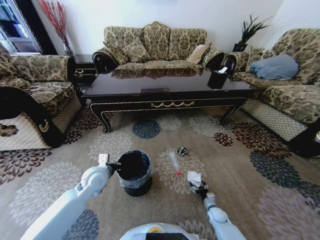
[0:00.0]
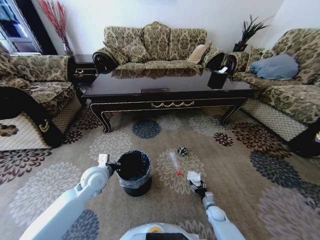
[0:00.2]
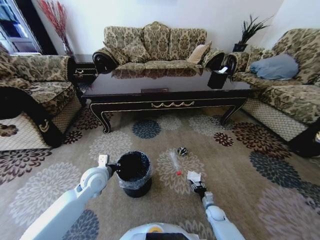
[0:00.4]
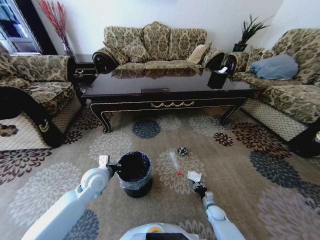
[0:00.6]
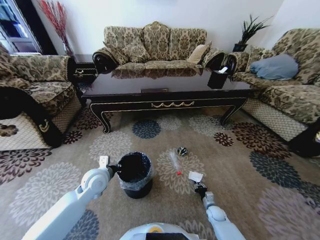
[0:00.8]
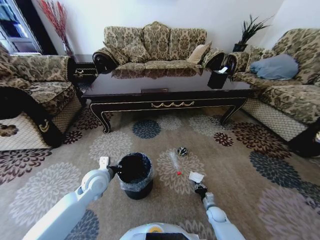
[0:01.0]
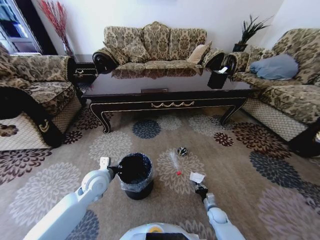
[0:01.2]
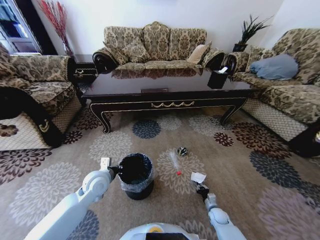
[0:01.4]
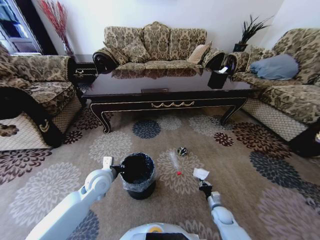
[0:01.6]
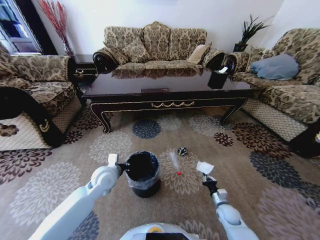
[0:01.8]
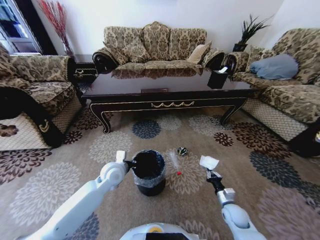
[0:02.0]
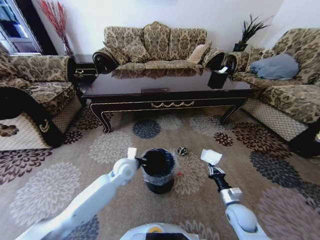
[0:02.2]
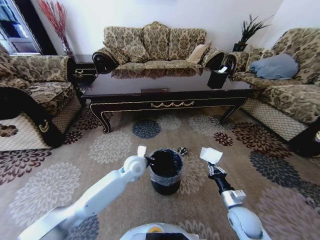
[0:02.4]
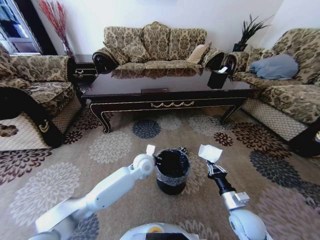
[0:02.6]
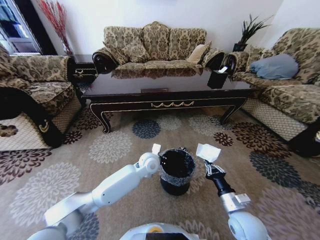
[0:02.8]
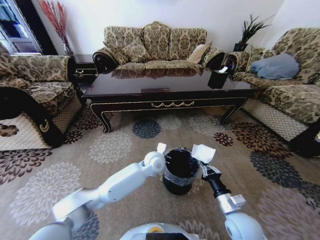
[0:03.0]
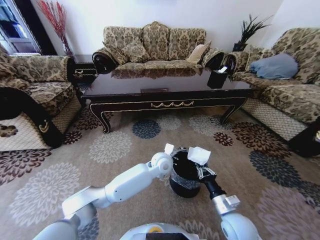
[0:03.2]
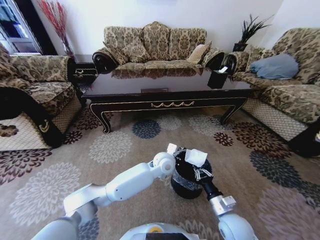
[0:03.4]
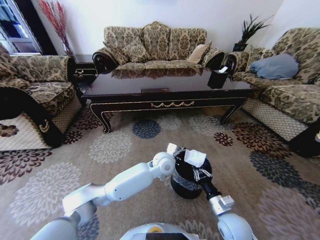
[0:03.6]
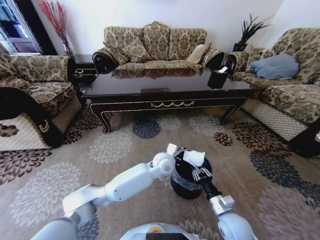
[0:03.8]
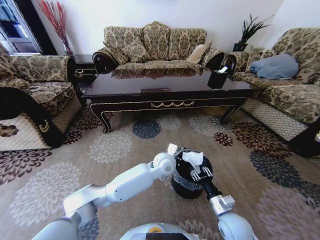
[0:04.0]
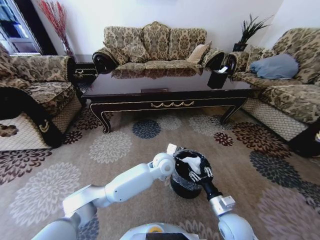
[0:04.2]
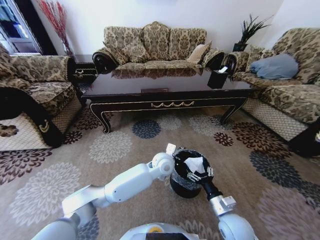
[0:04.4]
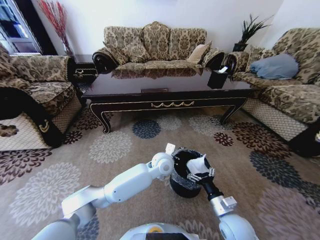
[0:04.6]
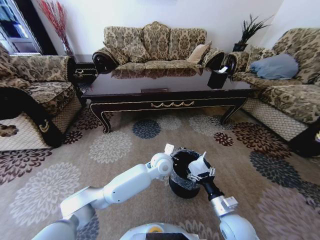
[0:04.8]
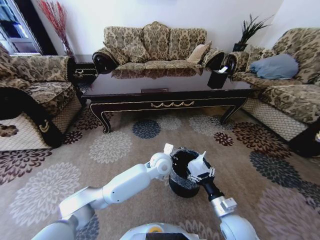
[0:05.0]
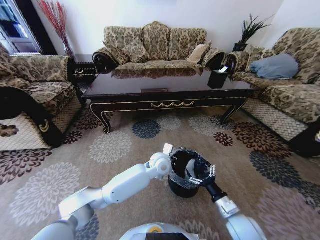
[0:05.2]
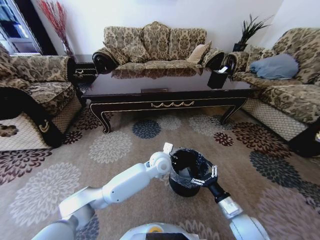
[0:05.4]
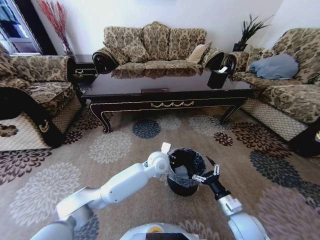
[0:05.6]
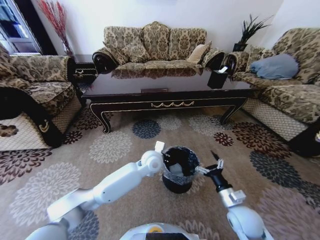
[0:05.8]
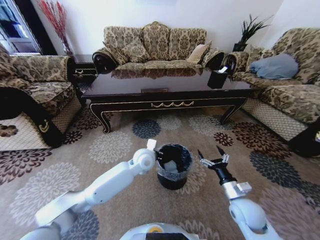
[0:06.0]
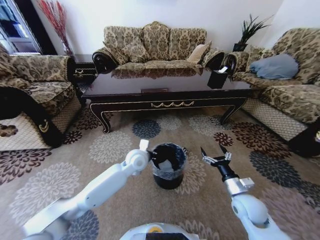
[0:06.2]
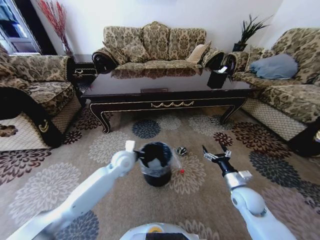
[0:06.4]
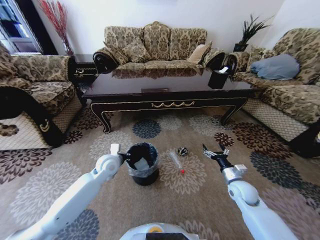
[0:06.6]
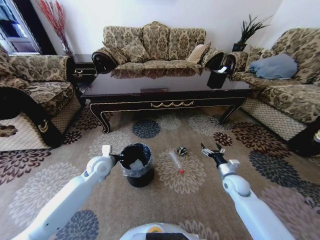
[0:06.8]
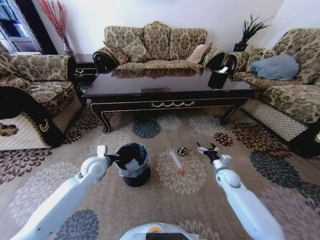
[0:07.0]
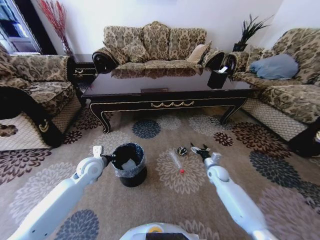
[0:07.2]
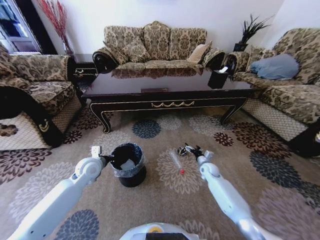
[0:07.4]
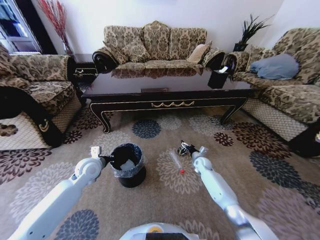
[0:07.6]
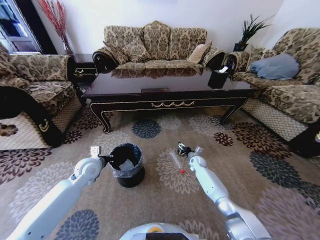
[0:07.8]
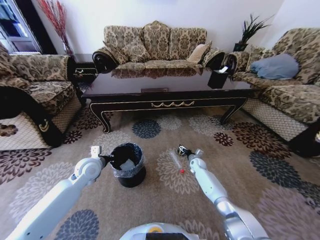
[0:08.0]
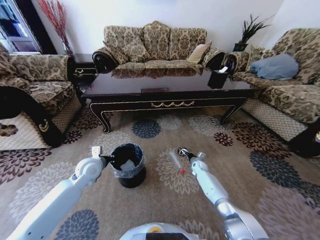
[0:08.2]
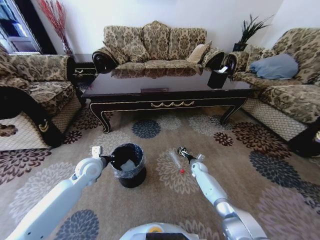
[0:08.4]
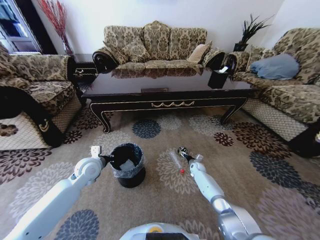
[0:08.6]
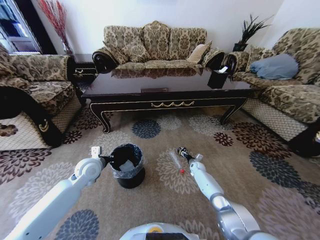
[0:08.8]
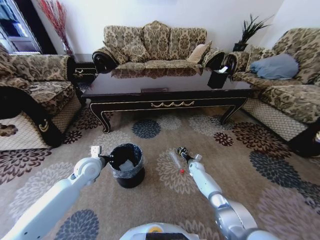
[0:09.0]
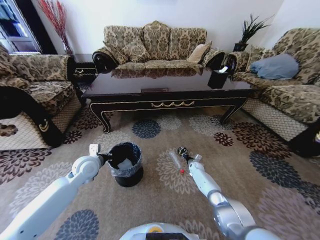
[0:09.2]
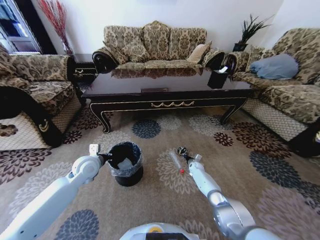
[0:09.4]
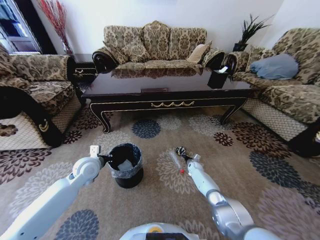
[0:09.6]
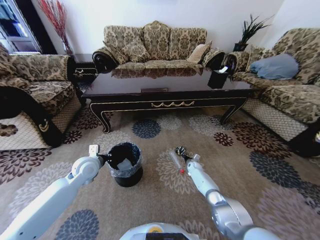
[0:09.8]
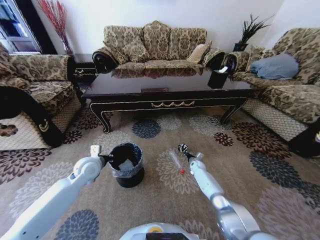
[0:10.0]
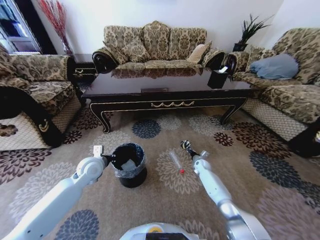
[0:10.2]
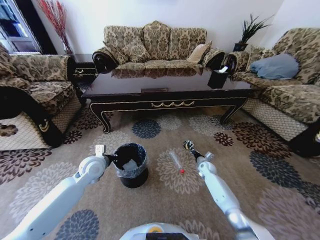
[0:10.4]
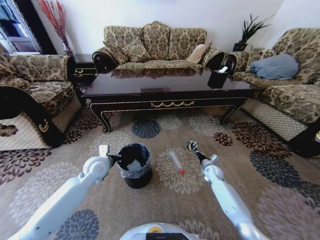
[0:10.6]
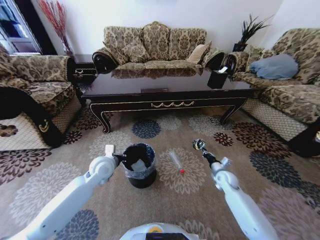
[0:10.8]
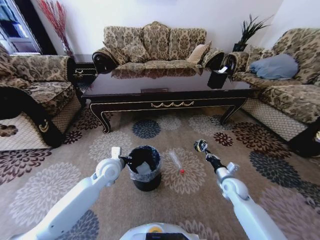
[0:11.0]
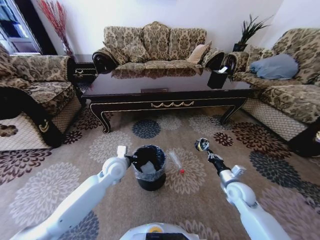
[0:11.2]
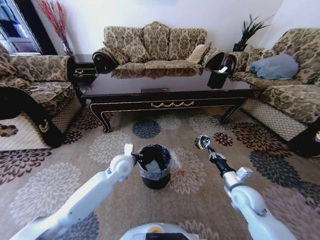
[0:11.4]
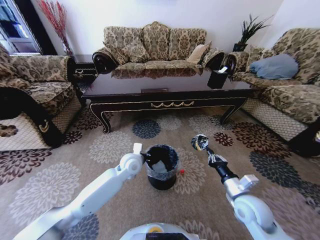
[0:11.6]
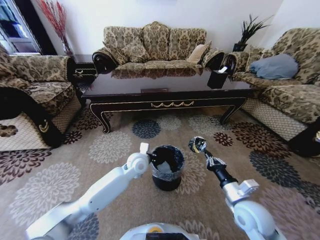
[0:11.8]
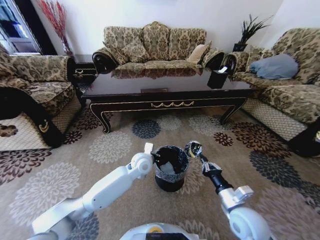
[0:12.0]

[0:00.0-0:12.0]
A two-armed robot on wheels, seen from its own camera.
Task of the whole recording: Move to the front of the table and pick up the trash from the floor, then place it into the trash bin.
0:00.0 to 0:01.6: The right gripper closes up.
0:01.6 to 0:03.0: The right gripper moves upward, roughly 25 cm. The left gripper shifts roughly 25 cm to the right.
0:03.0 to 0:04.4: The right gripper opens up.
0:04.4 to 0:06.0: The left gripper shifts about 10 cm to the left. Meanwhile the right gripper moves some 5 cm.
0:06.0 to 0:07.6: The left gripper travels to the left by some 25 cm. The right gripper moves forward and downward, roughly 30 cm.
0:07.6 to 0:09.0: The right gripper heads downward, covering approximately 10 cm, and closes its fingers.
0:09.0 to 0:10.4: The right gripper goes about 5 cm upward, and closes its fingers.
0:10.4 to 0:12.0: The right gripper is displaced backward and upward by some 35 cm; the left gripper heads to the right, covering approximately 20 cm.

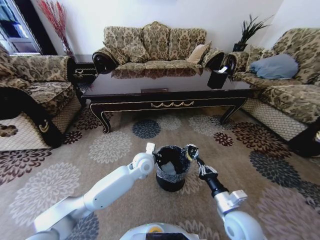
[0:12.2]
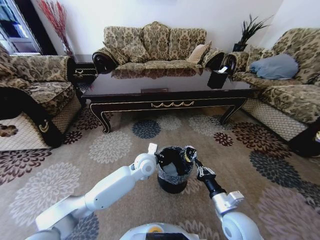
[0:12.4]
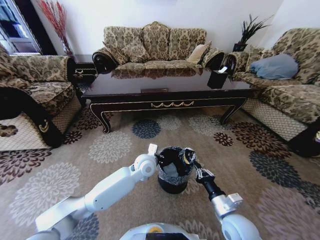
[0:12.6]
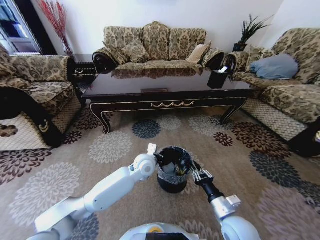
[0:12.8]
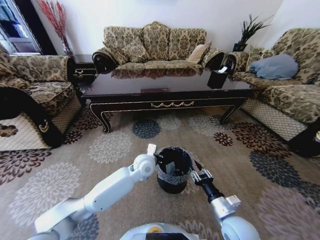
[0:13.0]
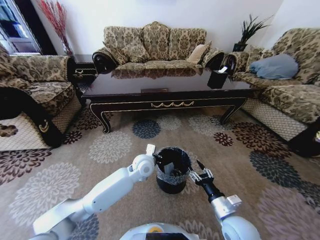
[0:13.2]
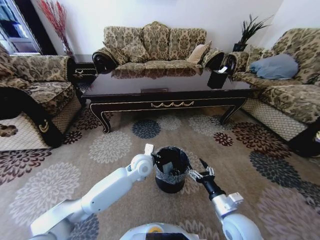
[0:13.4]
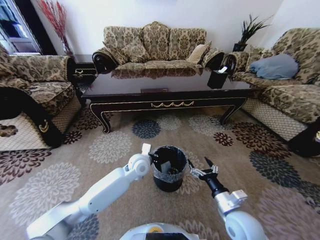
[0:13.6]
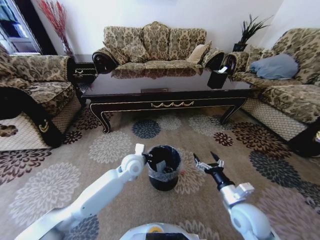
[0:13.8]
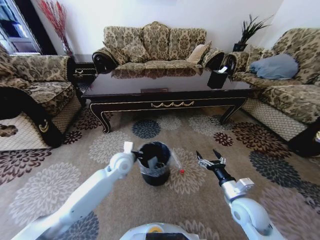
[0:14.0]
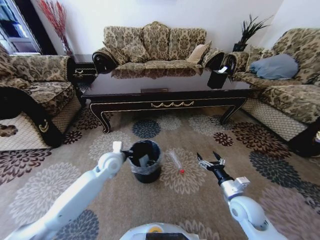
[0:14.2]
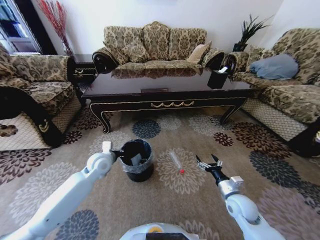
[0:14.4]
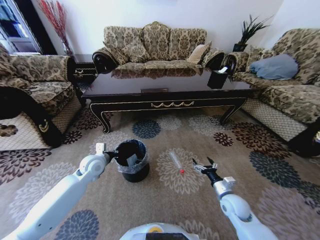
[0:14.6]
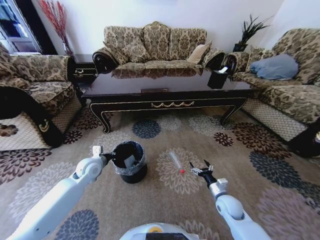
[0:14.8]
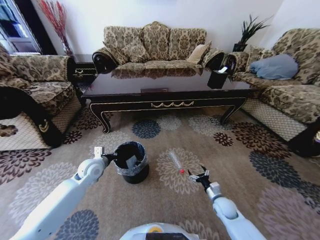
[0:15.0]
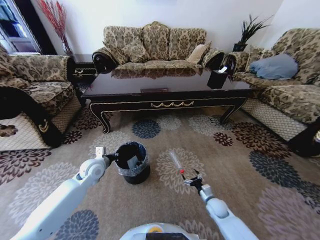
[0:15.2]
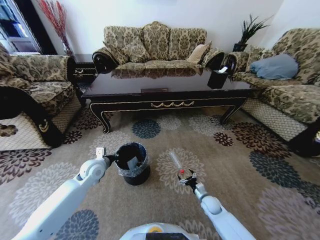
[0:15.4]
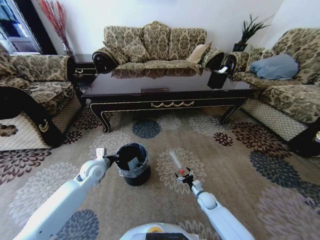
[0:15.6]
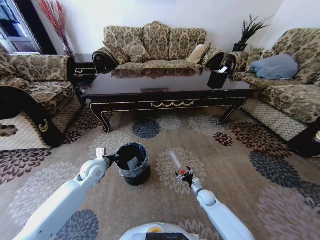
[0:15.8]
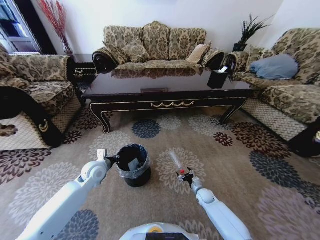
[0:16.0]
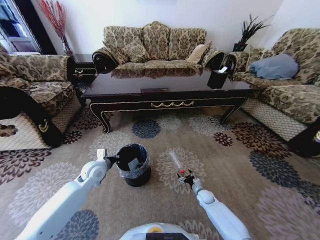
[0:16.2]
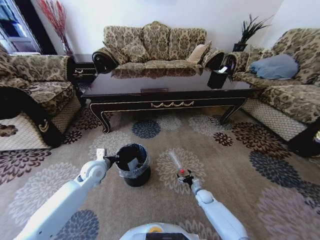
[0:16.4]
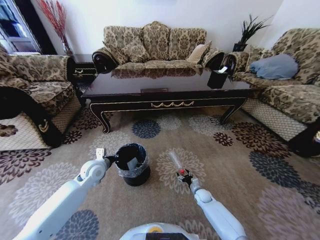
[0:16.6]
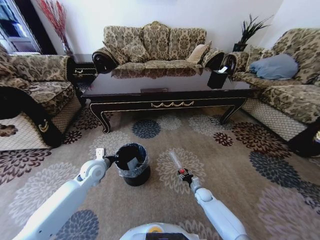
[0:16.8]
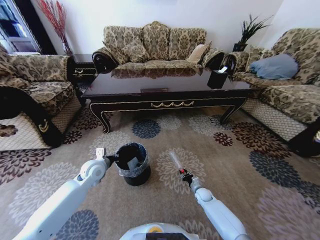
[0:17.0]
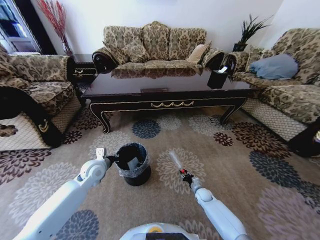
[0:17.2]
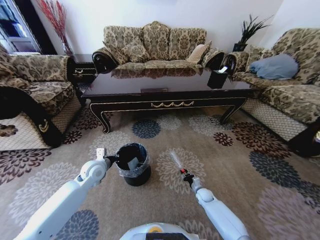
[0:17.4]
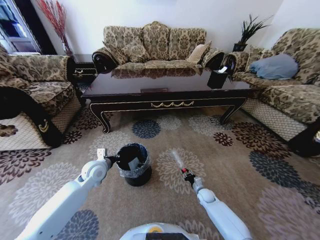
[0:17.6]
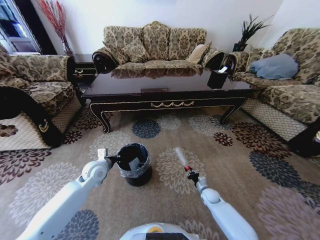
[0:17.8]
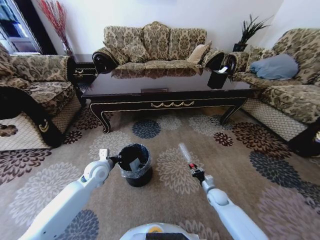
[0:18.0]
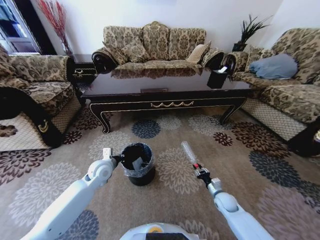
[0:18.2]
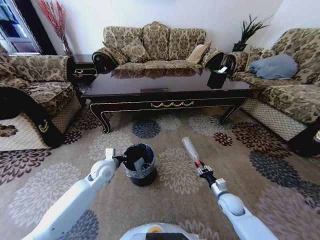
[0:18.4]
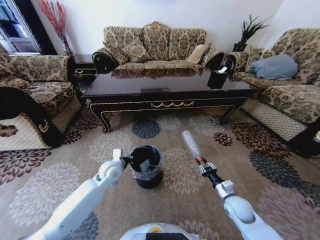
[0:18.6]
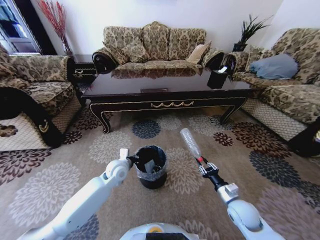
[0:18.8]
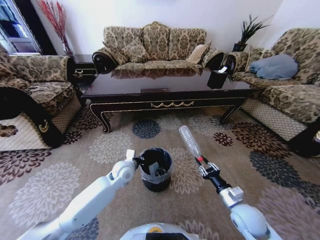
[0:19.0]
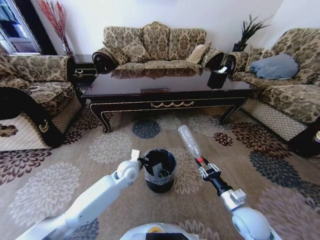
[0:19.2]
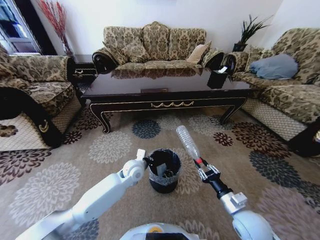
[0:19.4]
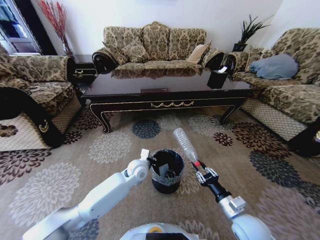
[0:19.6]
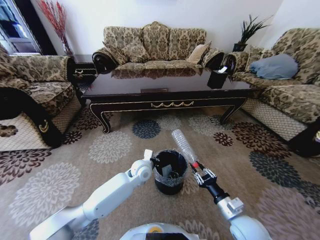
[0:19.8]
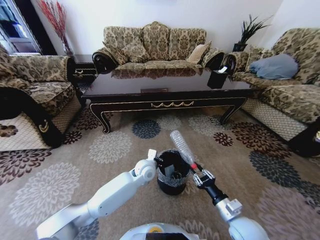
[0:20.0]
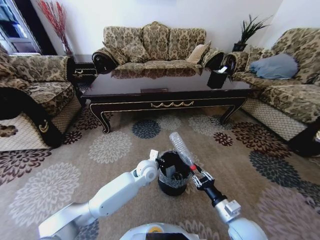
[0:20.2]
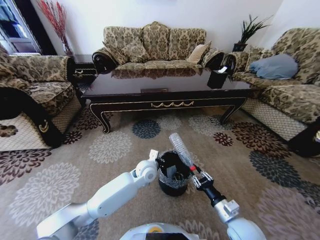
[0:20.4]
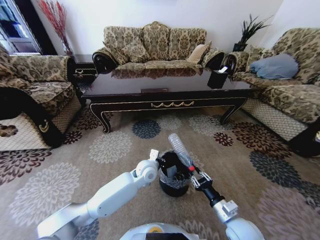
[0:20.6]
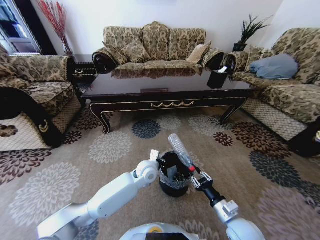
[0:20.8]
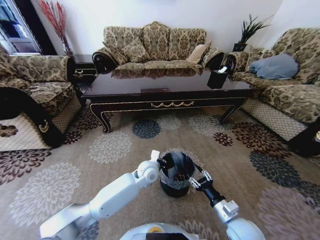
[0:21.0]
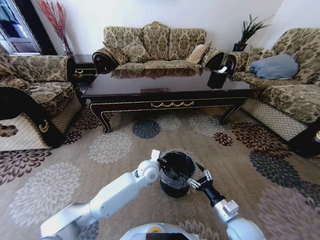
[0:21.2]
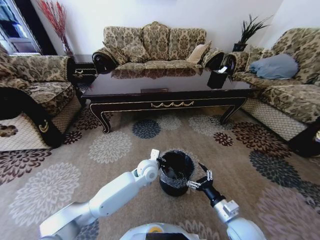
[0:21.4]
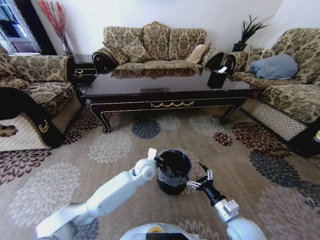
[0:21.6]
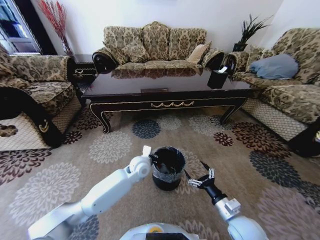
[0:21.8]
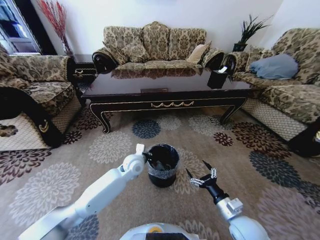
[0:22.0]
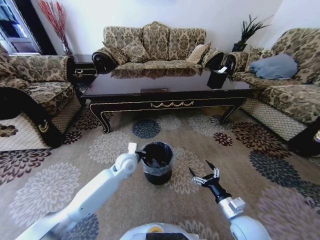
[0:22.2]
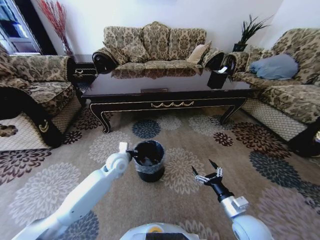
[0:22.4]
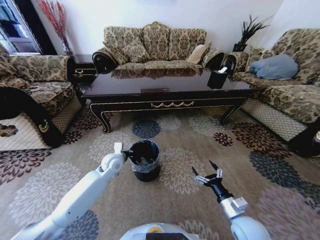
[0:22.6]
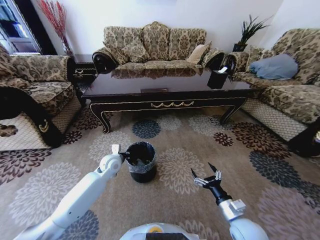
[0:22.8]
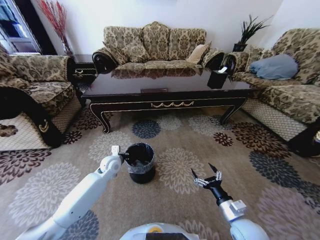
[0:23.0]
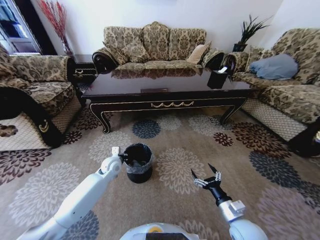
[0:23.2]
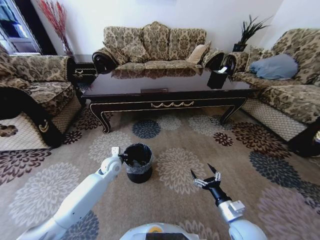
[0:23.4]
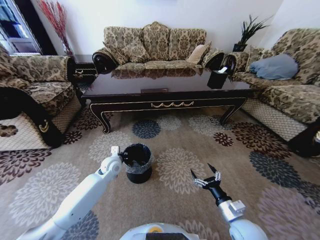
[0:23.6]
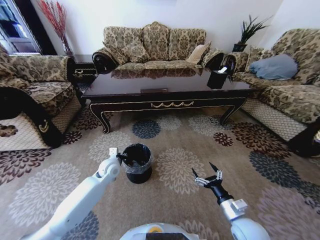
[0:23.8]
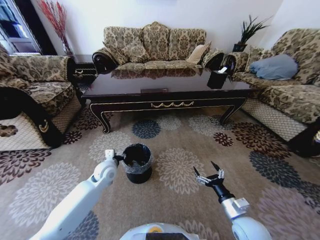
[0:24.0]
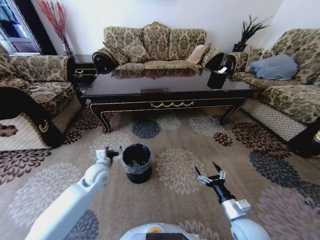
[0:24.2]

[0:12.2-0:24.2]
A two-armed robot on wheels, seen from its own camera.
Task of the whole recording: Move to the front of the table and pick up the trash from the floor, then place it into the trash bin.
0:12.2 to 0:13.8: The right gripper opens its fingers.
0:13.8 to 0:15.2: The right gripper is displaced downward by roughly 20 cm. Meanwhile the left gripper moves to the left, roughly 20 cm.
0:15.2 to 0:16.6: The right gripper heads forward and downward, covering approximately 10 cm.
0:16.6 to 0:18.2: The right gripper shifts about 10 cm upward and to the right, and closes.
0:18.2 to 0:19.8: The left gripper moves to the right, some 20 cm. The right gripper moves upward and backward, roughly 20 cm.
0:19.8 to 0:21.2: The right gripper opens its fingers.
0:21.2 to 0:22.6: The left gripper is displaced to the left by approximately 15 cm.
0:22.6 to 0:24.2: The left gripper moves backward and to the left, roughly 10 cm, and opens.
